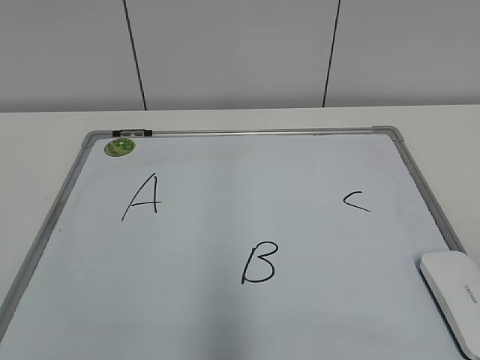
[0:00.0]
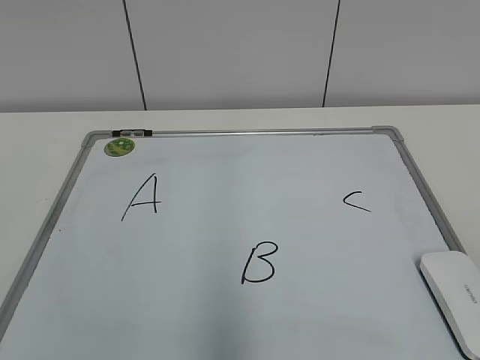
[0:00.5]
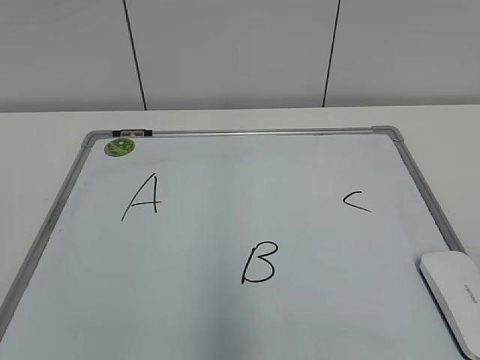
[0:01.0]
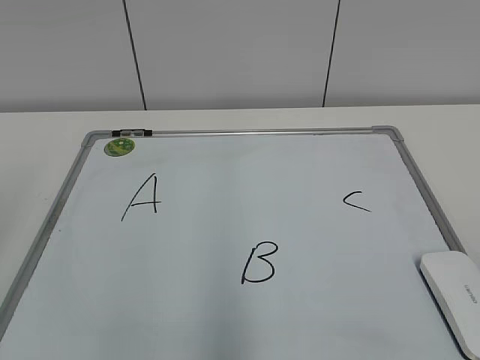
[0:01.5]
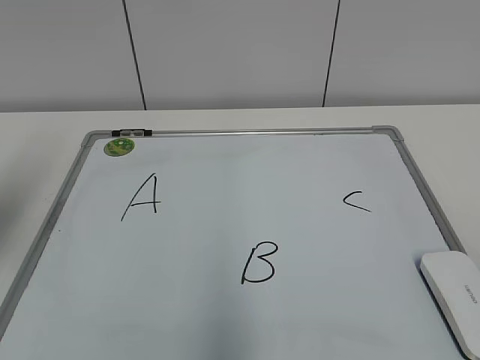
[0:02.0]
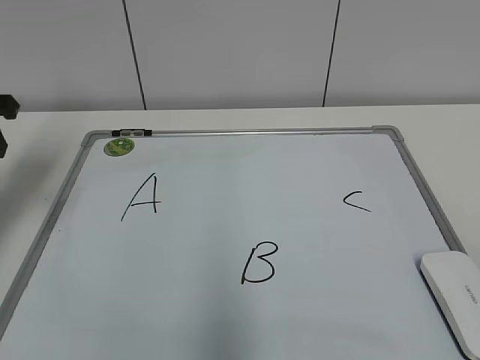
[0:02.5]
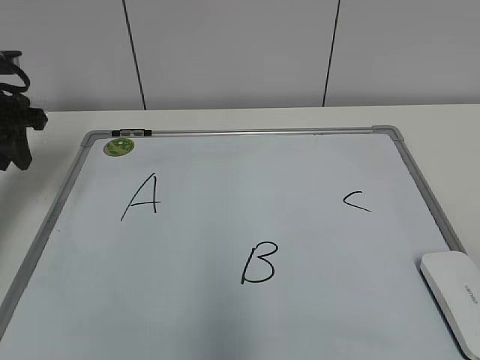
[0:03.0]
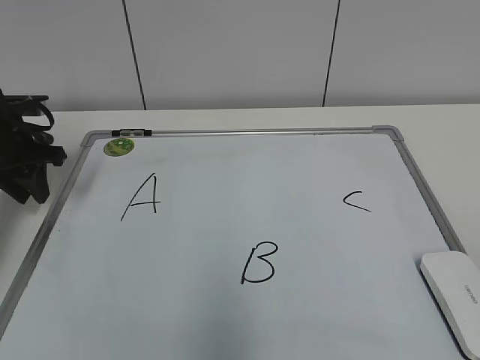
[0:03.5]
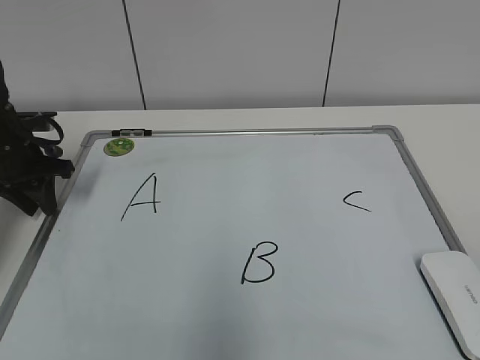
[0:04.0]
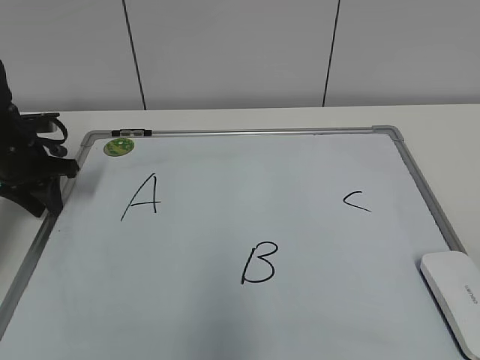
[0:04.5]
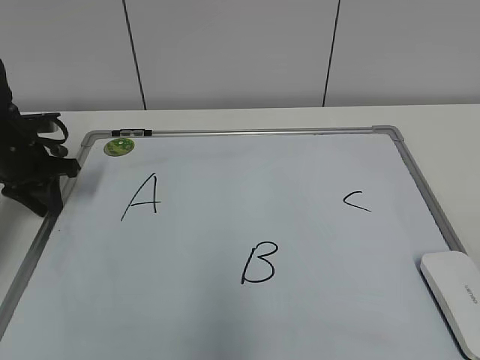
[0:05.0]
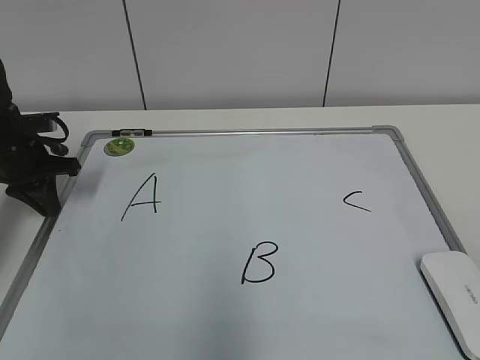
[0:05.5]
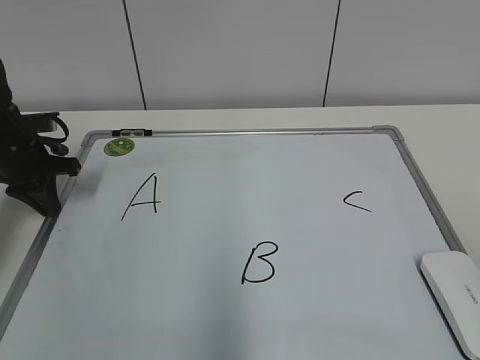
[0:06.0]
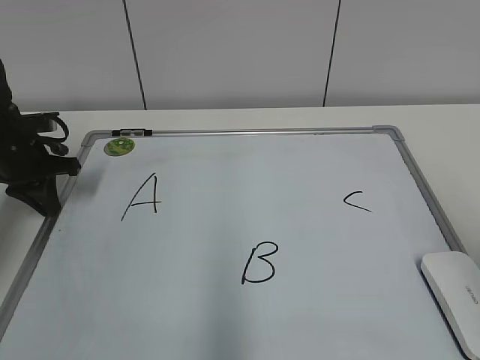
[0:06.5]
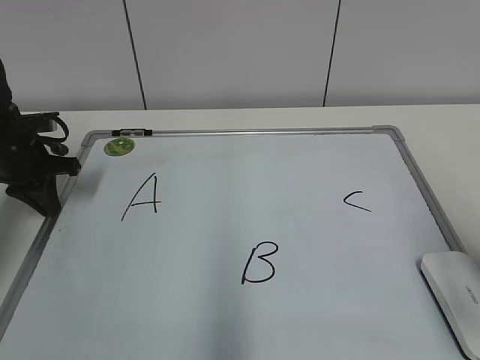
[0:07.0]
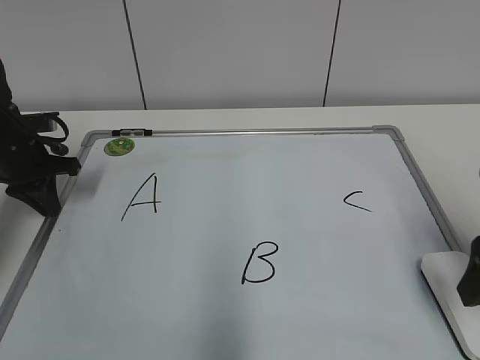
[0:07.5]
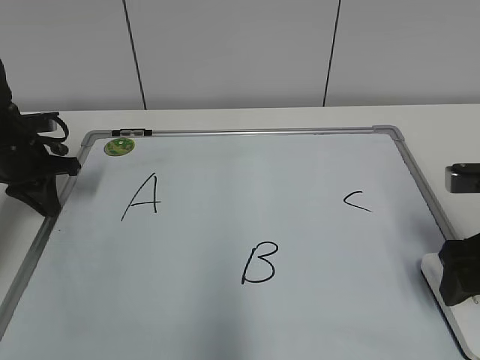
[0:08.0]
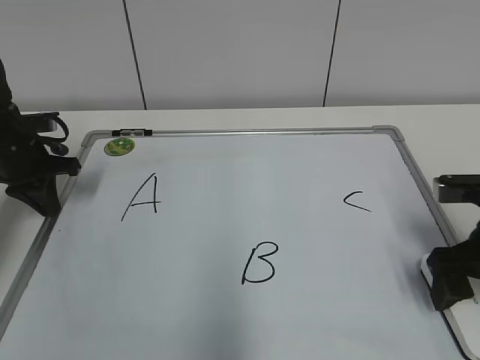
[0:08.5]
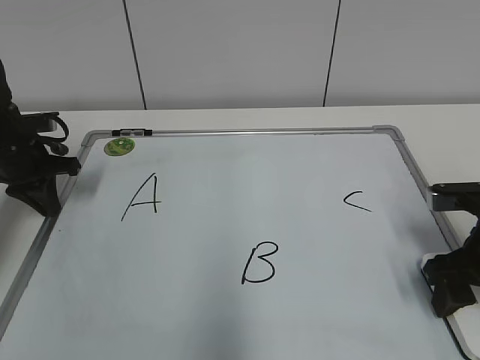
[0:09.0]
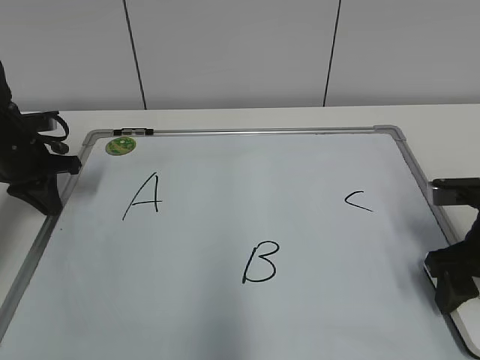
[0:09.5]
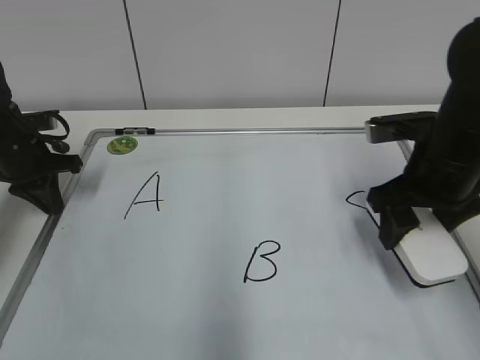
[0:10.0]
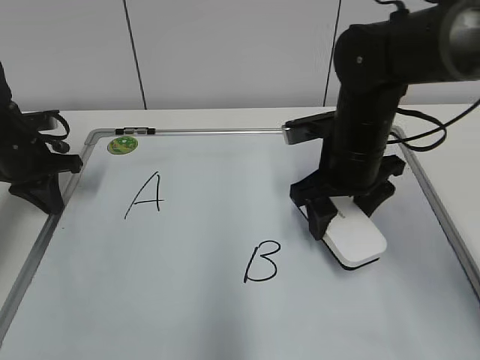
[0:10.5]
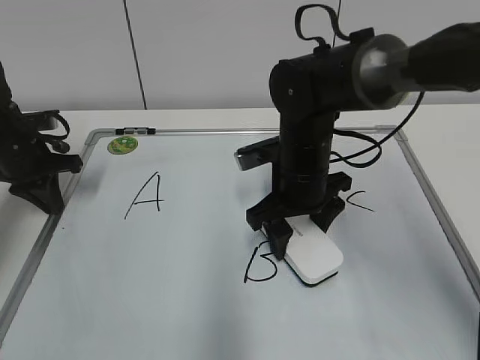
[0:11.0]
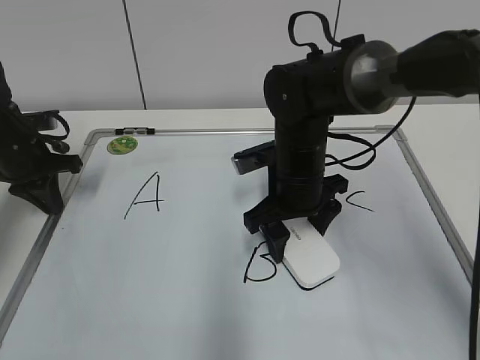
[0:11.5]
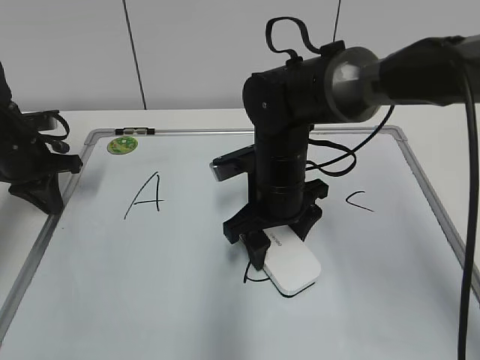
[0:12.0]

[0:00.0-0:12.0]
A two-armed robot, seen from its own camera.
Task of the whole recording: pick up the eraser on the blackboard and erase the letter "B".
Step, 0:00.0 to 0:06.0: Hold the drawing board steady with your left hand.
Step, 0:06.5 to 0:09.0: Grab the eraser with your right hand.
0:02.0 to 0:04.0: The left gripper heads forward and downward, covering some 25 cm.
0:04.0 to 0:06.0: The left gripper closes up.
0:06.0 to 0:08.0: The right gripper goes about 25 cm forward and downward, and opens its fingers.
0:08.0 to 0:10.0: The right gripper moves forward and to the left, some 10 cm, and closes up.
0:10.0 to 0:12.0: The right gripper goes roughly 15 cm to the left.

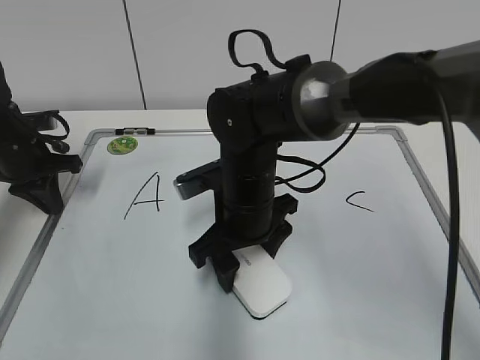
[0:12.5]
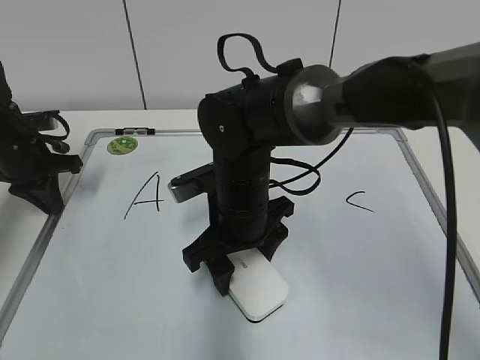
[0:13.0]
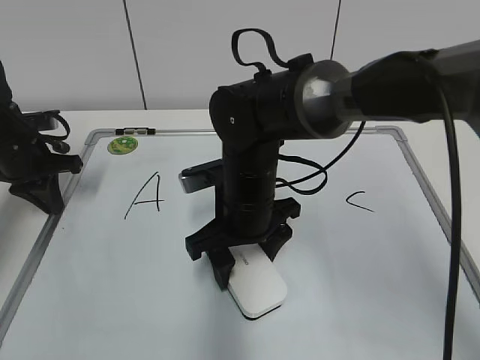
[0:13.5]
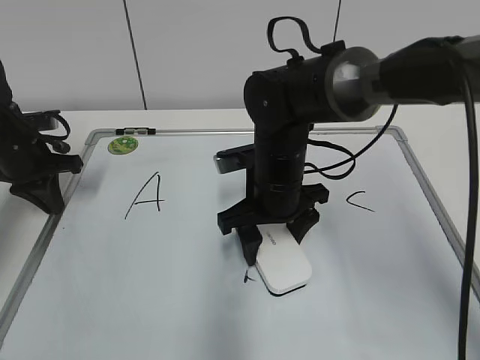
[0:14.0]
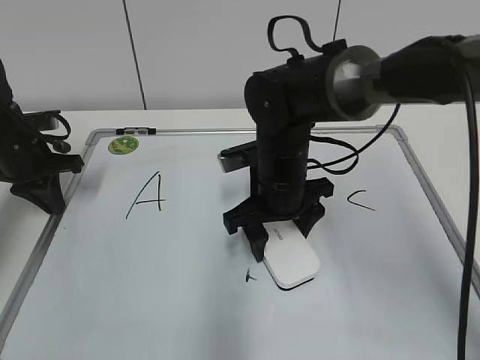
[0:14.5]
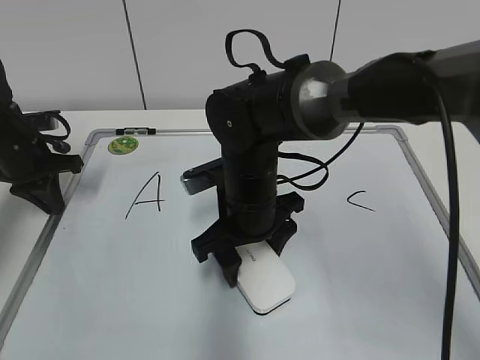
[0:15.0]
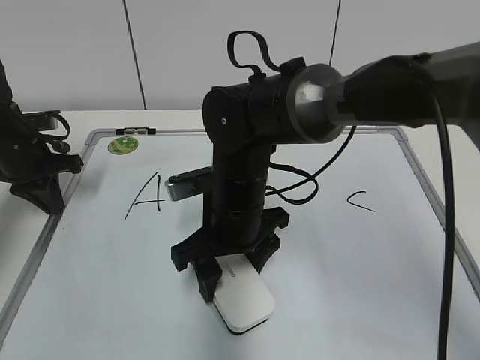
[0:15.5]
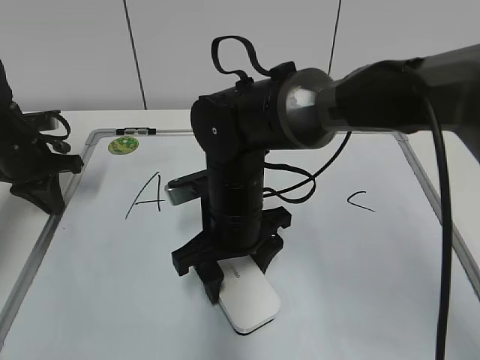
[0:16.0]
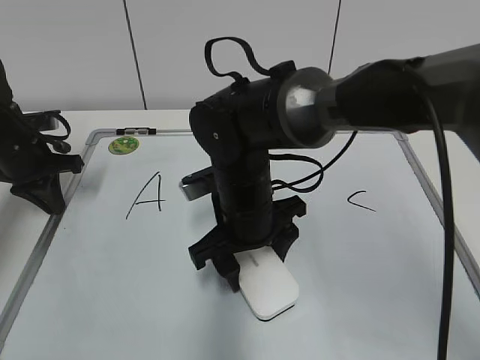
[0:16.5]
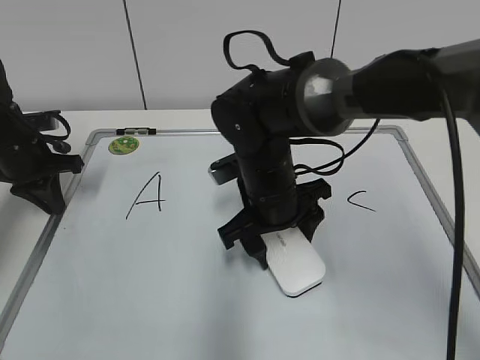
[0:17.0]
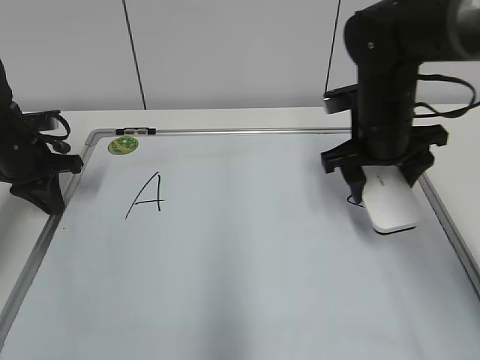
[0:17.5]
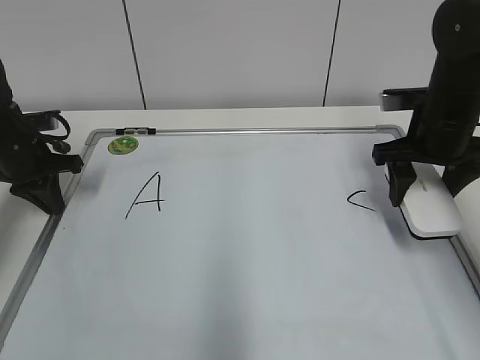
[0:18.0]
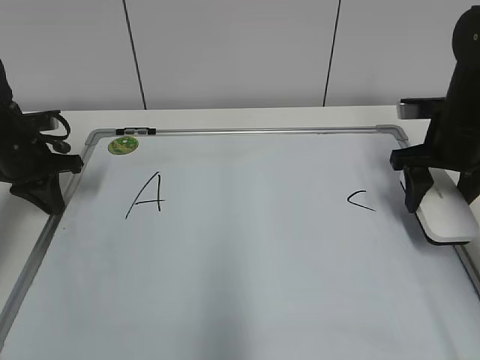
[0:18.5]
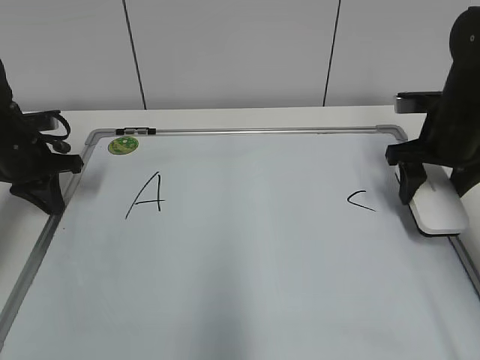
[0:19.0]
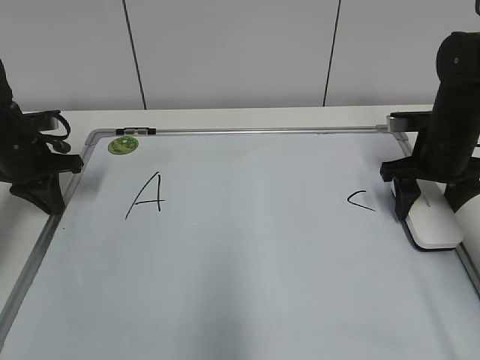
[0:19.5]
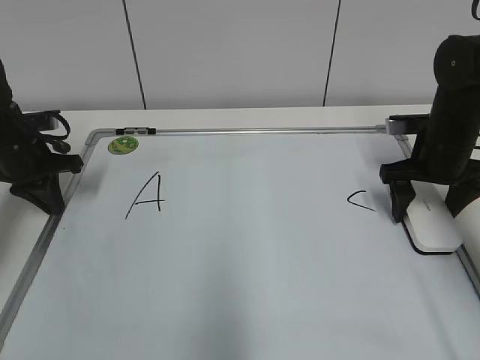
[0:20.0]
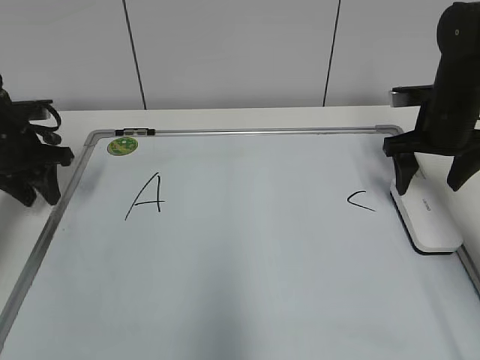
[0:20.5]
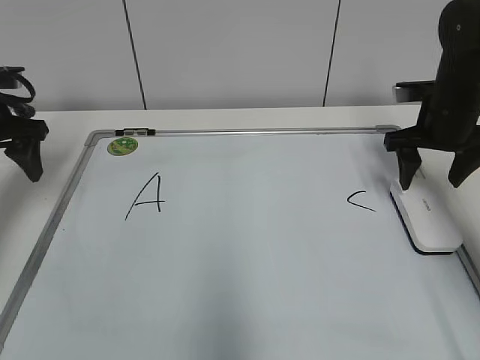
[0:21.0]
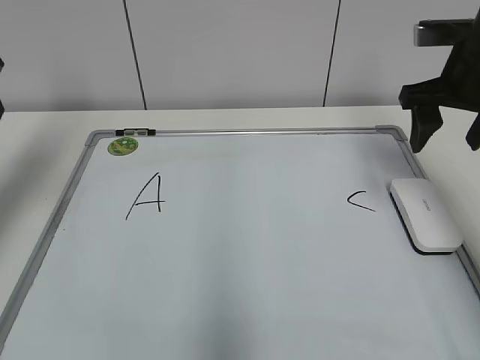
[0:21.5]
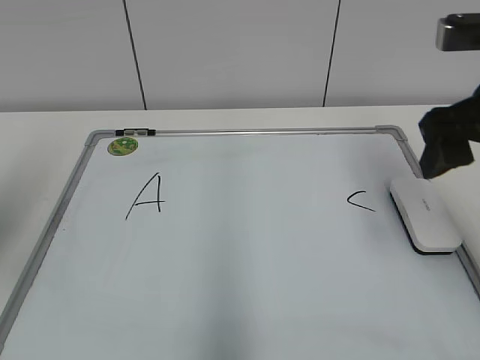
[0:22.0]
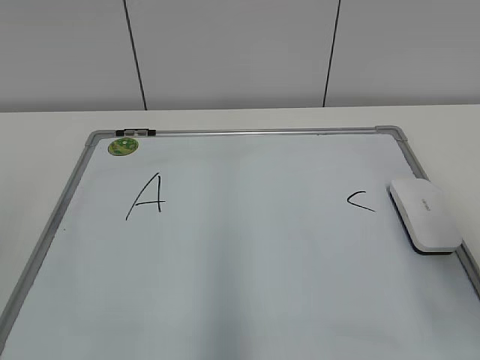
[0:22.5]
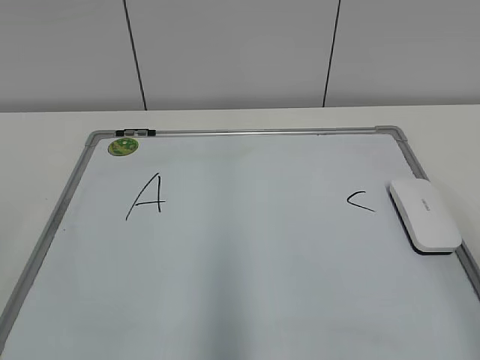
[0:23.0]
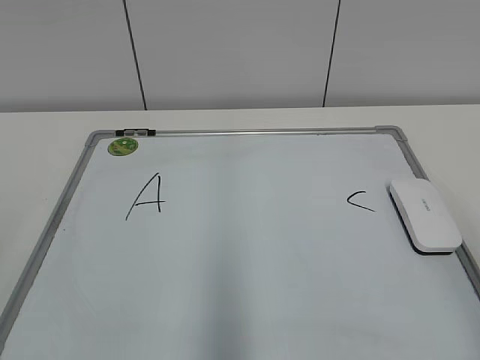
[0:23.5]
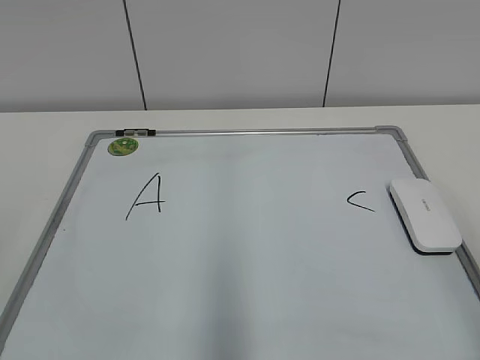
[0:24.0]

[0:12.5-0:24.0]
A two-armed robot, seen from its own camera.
Task of the whole recording: pick up the eraser on the blackboard and erase the letter "B".
Step, 0:12.5 to 0:17.0: Erase the letter B with your right hand.
Step, 0:17.5 to 0:19.5: Put down the eraser with your right hand.
0:12.5 to 0:14.5: The right gripper ends up about 5 cm from where it was.
0:14.5 to 0:16.5: The right gripper moves about 5 cm.
0:16.5 to 0:18.5: The right gripper moves to the right, some 25 cm.
0:18.5 to 0:20.0: The right gripper opens its fingers.
0:20.0 to 0:22.0: The left gripper shifts approximately 25 cm backward and upward, and opens. The right gripper heads upward and backward, covering approximately 20 cm.
0:22.0 to 0:24.0: The right gripper goes roughly 20 cm backward.

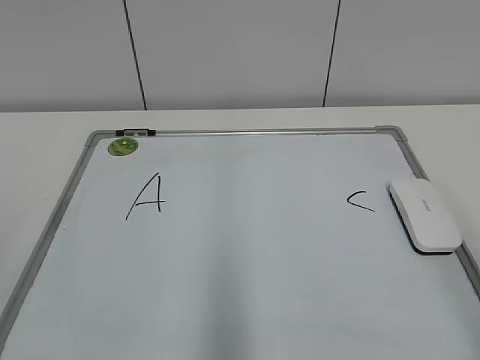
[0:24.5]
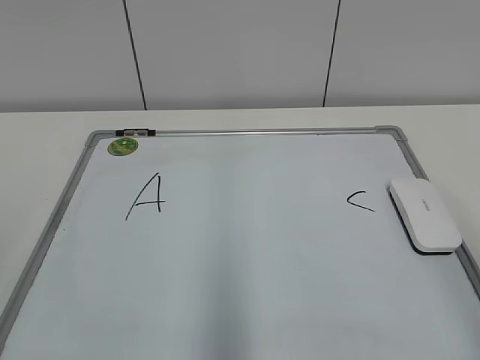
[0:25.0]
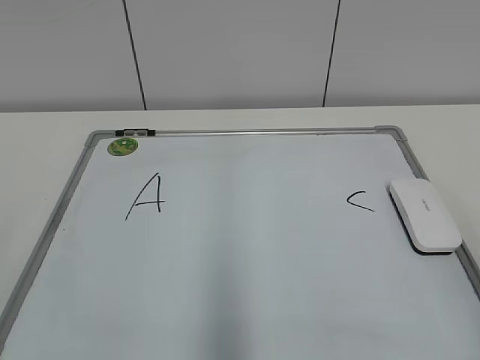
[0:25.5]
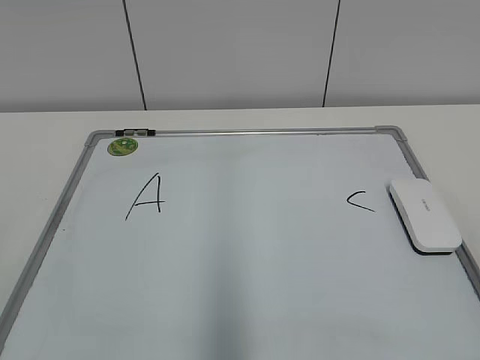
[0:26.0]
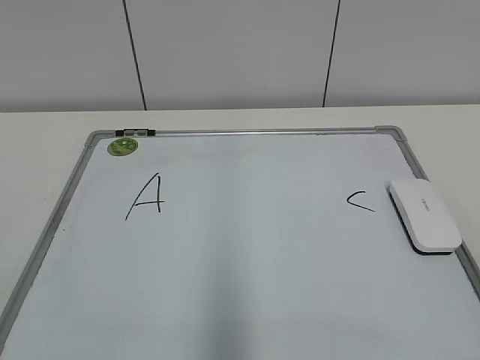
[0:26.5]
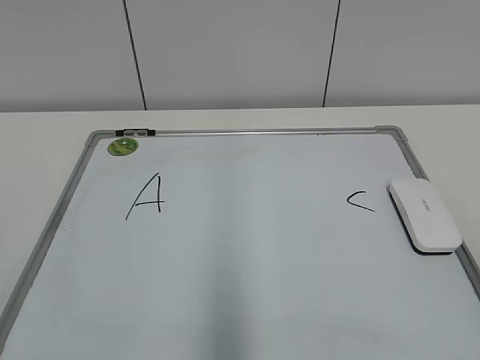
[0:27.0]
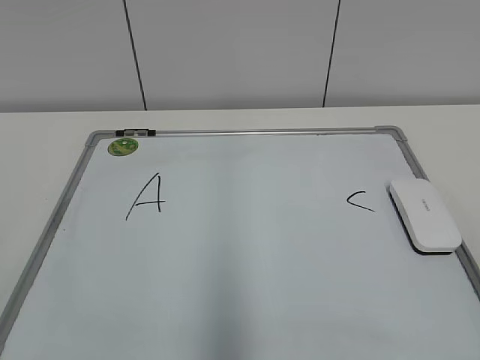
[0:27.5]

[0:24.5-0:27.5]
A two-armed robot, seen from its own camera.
Task of the whole recording: pick up the eraser on the blackboard and erase the letter "B".
0:26.0 to 0:27.5: Both grippers stay put.
